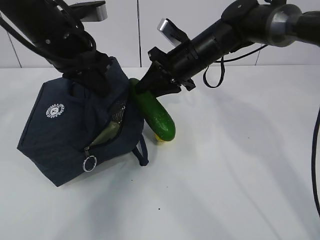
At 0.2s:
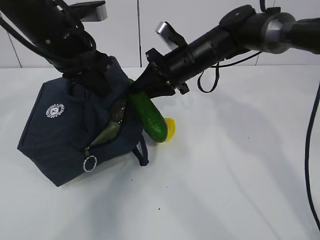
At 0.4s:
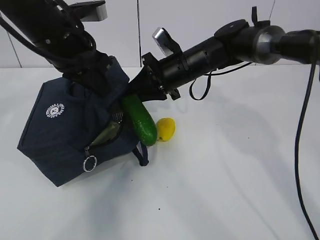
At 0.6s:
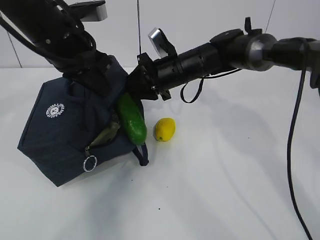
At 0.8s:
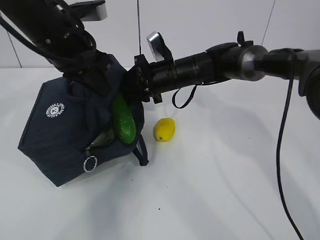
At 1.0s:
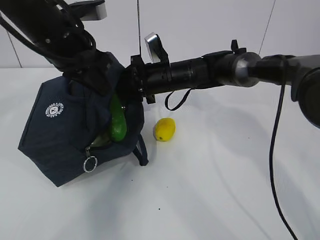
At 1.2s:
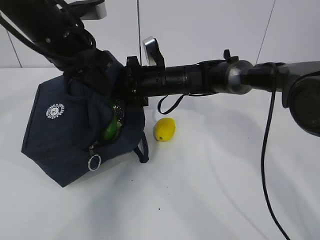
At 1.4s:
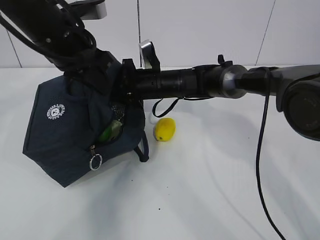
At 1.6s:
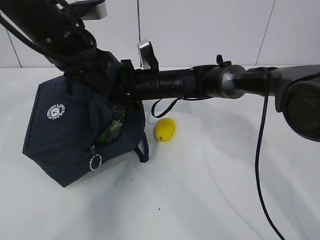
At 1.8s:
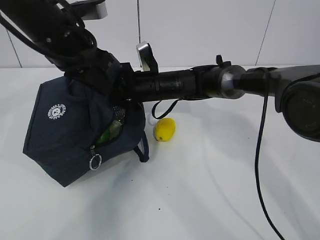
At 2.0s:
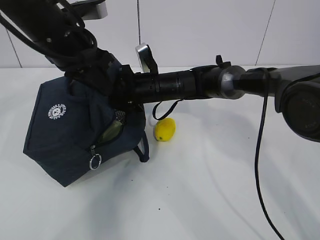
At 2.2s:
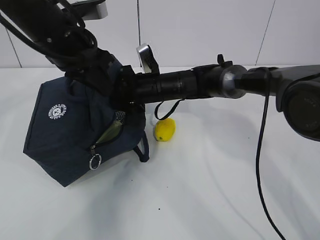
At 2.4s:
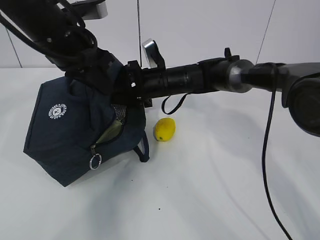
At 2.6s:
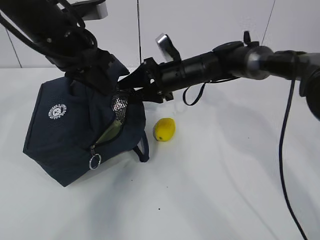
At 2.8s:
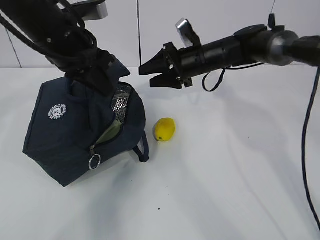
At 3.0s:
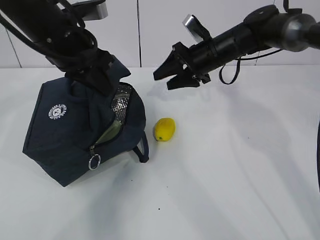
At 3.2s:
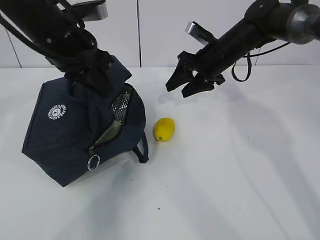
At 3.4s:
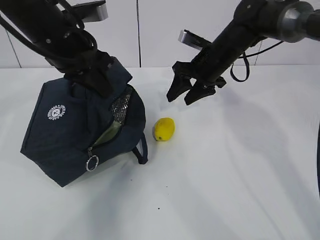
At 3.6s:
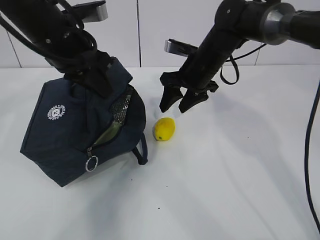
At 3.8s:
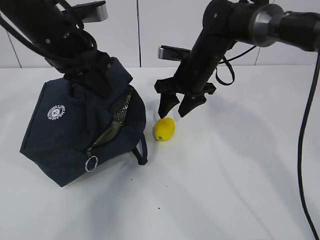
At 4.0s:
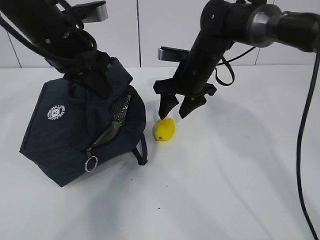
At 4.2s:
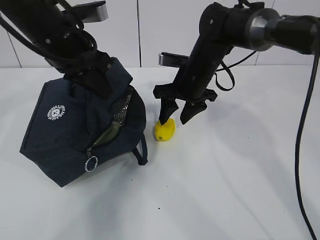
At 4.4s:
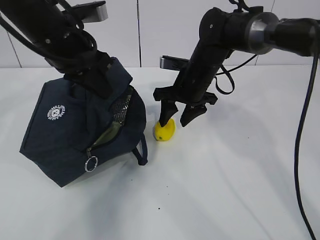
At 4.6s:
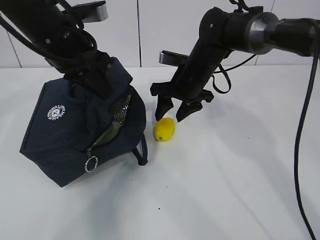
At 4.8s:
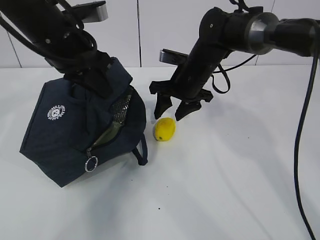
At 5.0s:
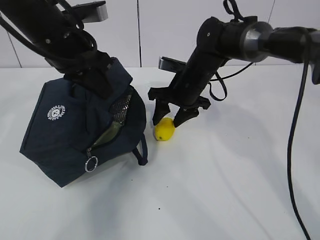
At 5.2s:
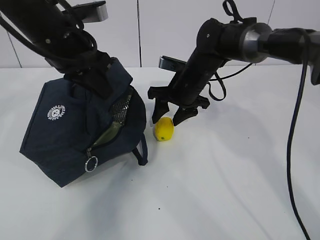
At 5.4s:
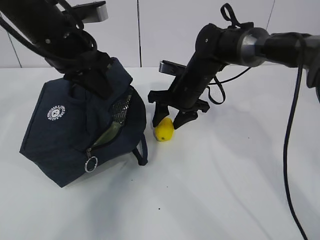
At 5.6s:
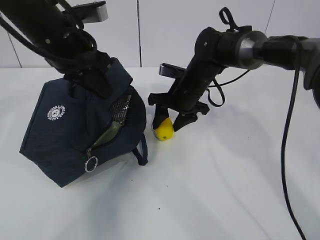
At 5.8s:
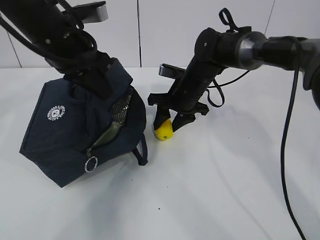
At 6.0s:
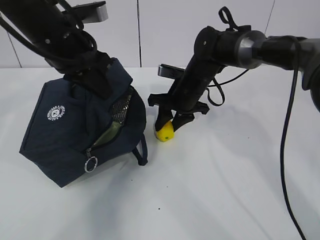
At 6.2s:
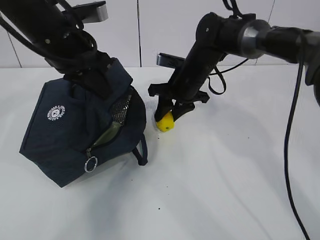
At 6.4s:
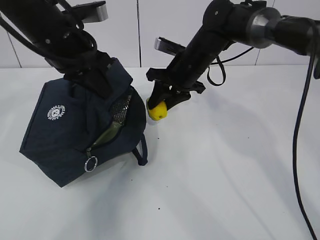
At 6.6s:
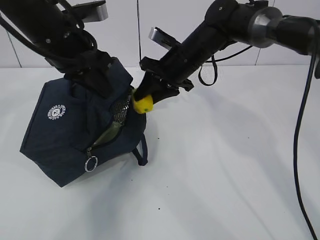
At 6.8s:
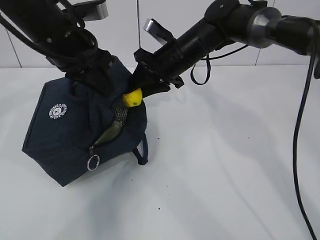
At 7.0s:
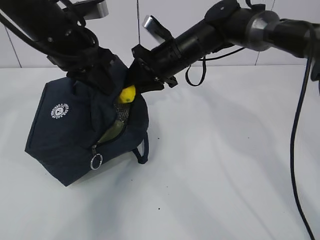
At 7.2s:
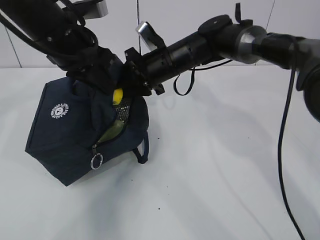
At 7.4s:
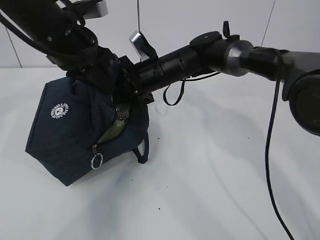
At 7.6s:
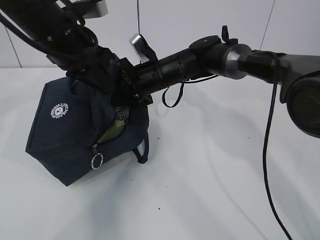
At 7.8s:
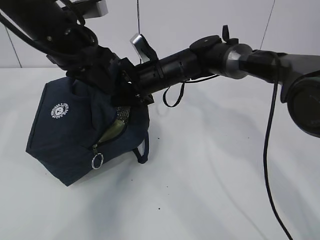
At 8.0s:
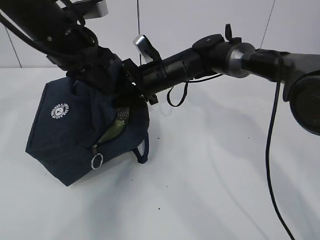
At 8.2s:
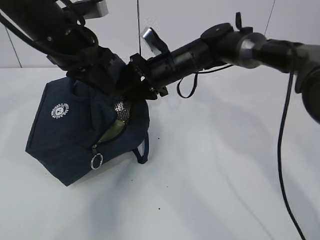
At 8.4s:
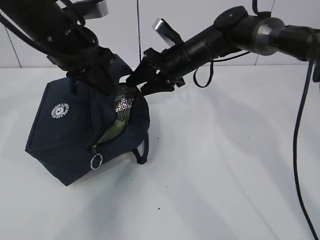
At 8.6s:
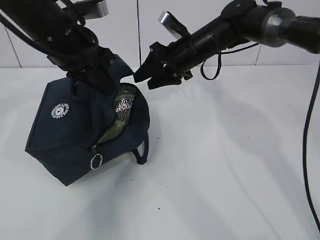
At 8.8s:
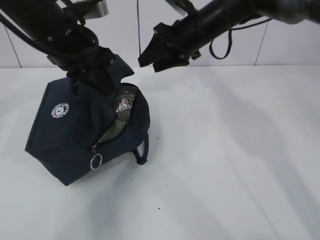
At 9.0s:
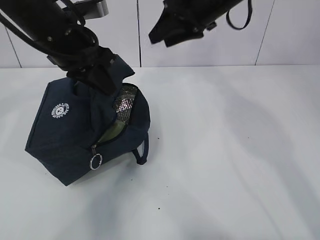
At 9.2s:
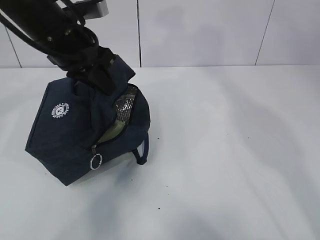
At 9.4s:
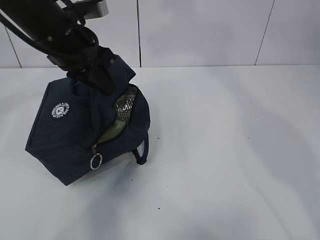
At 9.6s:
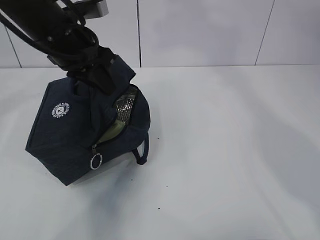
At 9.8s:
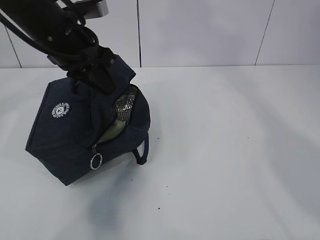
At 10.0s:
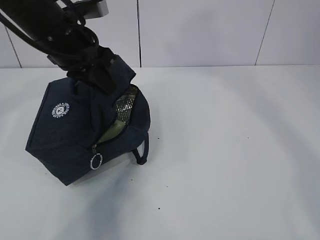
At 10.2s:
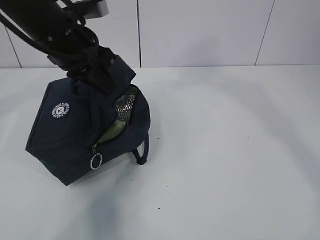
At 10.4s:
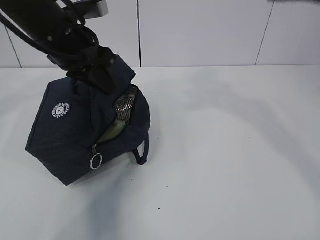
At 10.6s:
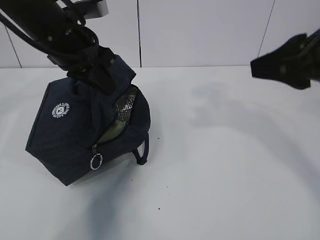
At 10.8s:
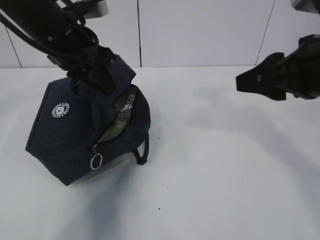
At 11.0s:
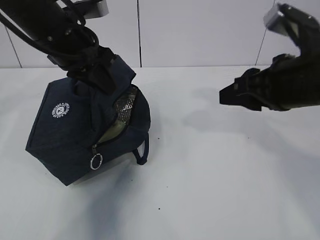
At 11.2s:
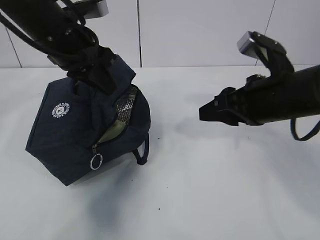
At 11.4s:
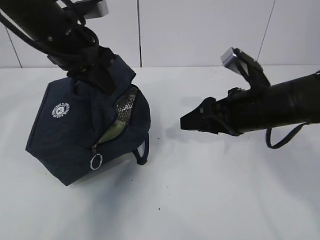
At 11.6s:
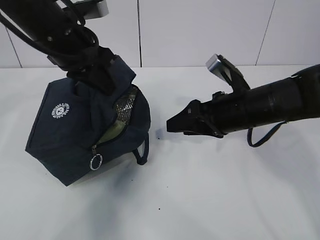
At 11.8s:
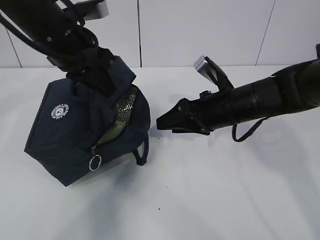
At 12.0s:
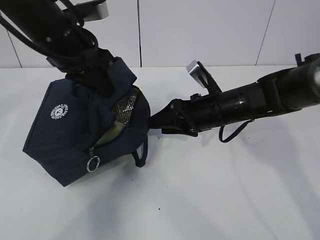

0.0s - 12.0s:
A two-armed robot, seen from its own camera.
Step, 2.4s - 6.8s: Grab the lunch bag with your right hand.
Step, 7.0s - 9.2s: Move the lunch bag to the right.
0.0s - 1.6s: The right gripper travels to the left and downward by approximately 10 cm.
1.6s - 3.0s: The right gripper travels to the right and upward by about 15 cm, and opens its fingers.
3.0s - 4.4s: The right gripper changes place by approximately 5 cm.
4.4s - 6.0s: There are only small adjustments of the grippers.
6.0s - 7.6s: The right gripper shifts some 5 cm to the left.
7.6s - 9.0s: The right gripper travels upward and to the right by some 15 cm.
9.0s - 10.4s: The right gripper heads backward and upward, covering roughly 25 cm.
10.4s - 12.0s: The right gripper is displaced downward and forward by approximately 30 cm.

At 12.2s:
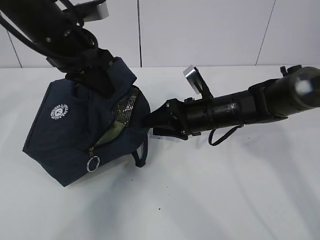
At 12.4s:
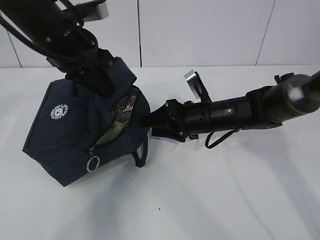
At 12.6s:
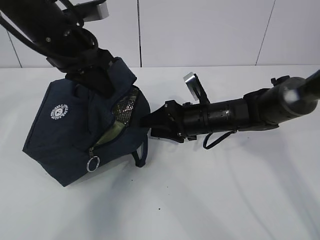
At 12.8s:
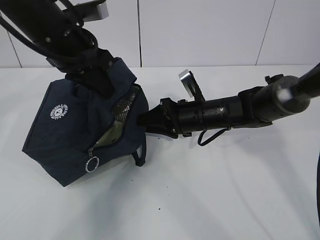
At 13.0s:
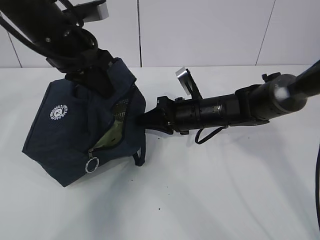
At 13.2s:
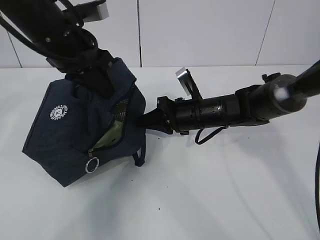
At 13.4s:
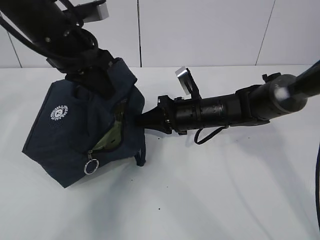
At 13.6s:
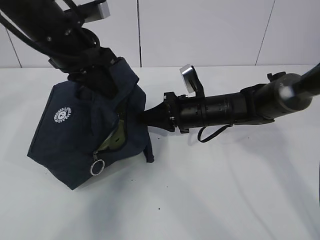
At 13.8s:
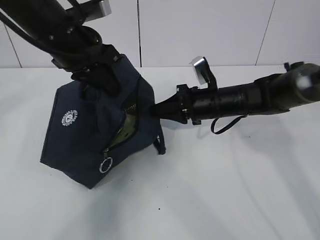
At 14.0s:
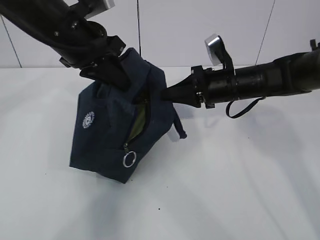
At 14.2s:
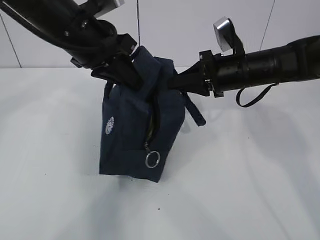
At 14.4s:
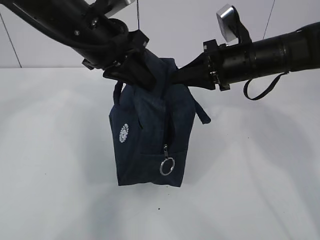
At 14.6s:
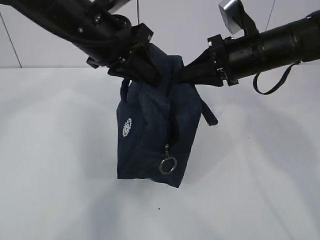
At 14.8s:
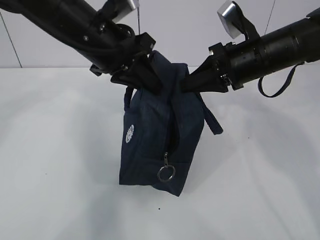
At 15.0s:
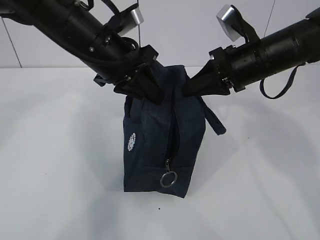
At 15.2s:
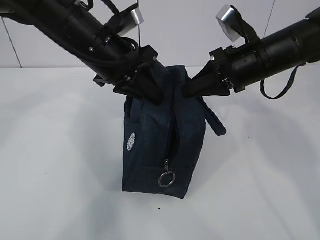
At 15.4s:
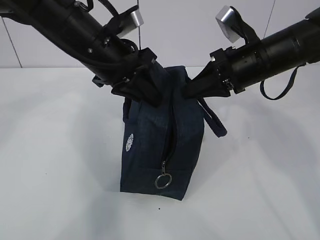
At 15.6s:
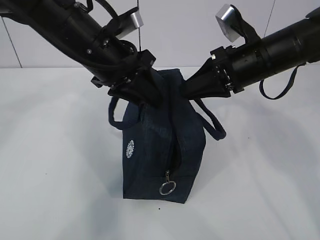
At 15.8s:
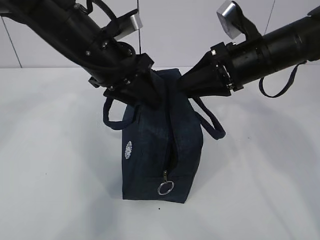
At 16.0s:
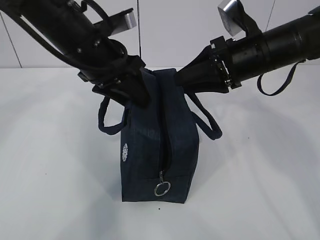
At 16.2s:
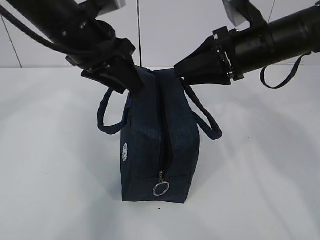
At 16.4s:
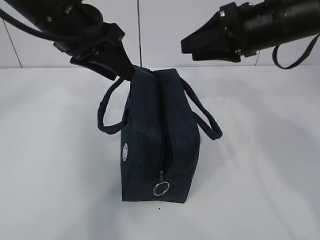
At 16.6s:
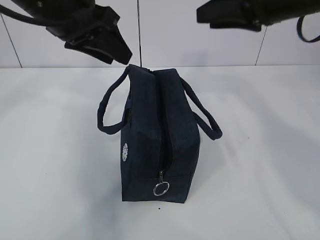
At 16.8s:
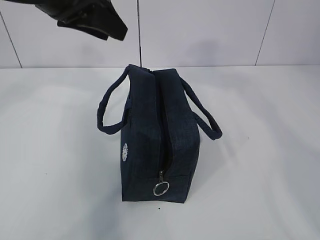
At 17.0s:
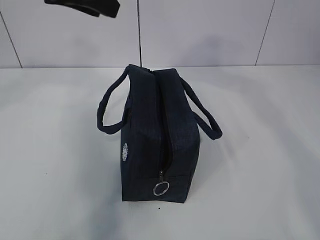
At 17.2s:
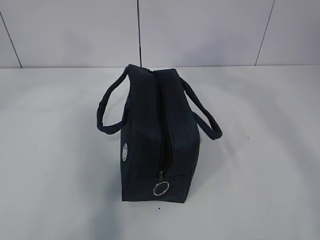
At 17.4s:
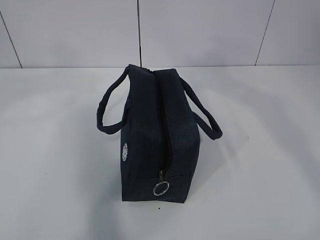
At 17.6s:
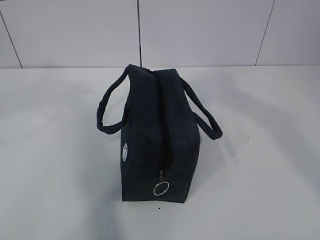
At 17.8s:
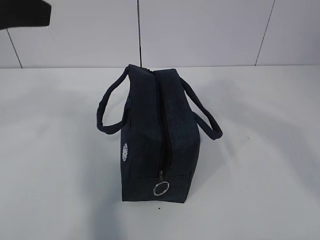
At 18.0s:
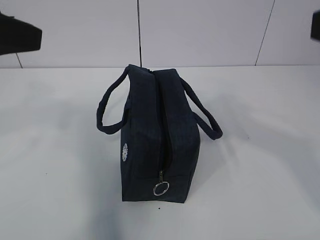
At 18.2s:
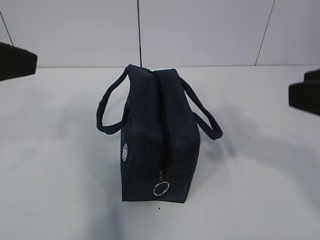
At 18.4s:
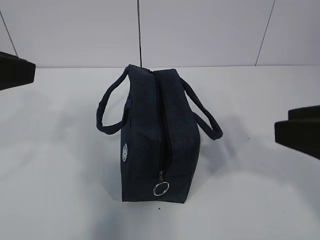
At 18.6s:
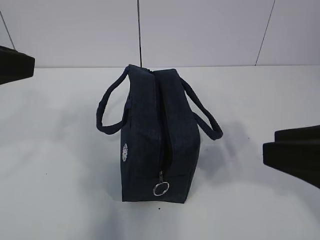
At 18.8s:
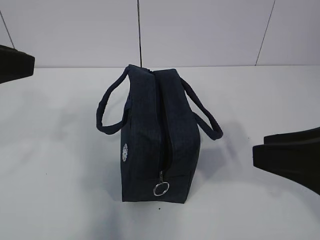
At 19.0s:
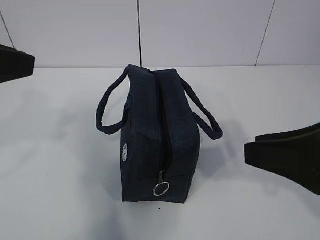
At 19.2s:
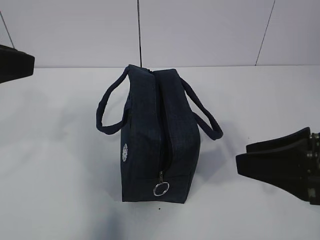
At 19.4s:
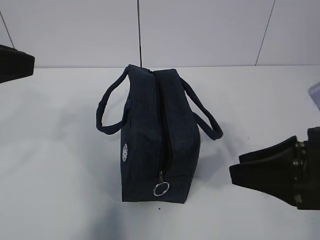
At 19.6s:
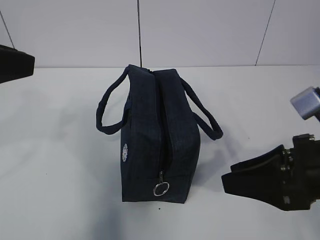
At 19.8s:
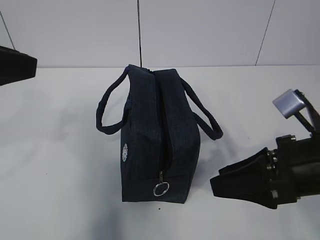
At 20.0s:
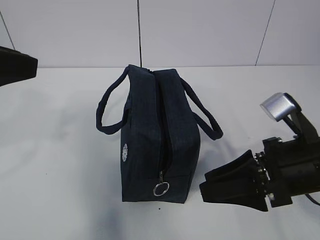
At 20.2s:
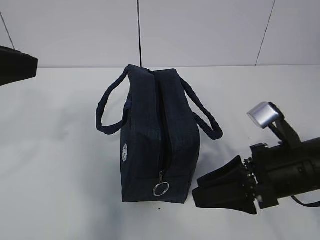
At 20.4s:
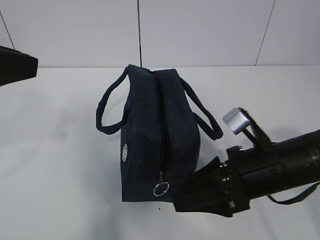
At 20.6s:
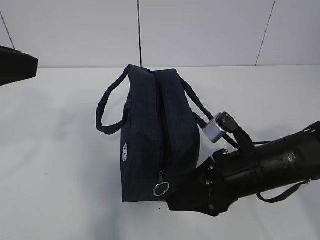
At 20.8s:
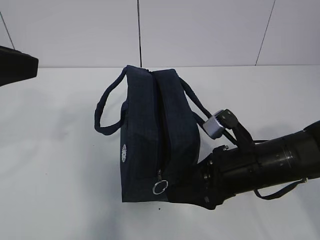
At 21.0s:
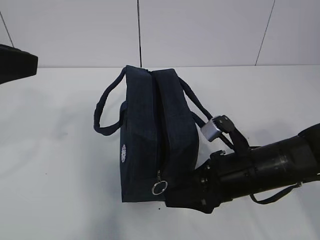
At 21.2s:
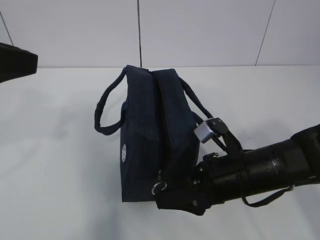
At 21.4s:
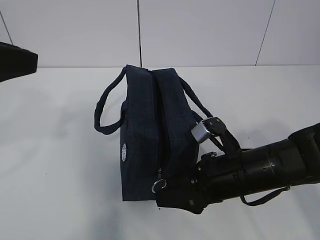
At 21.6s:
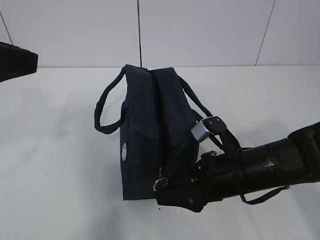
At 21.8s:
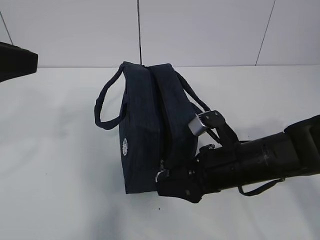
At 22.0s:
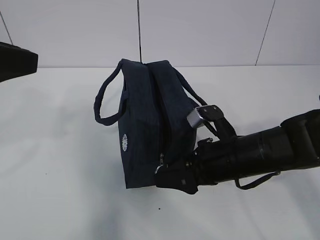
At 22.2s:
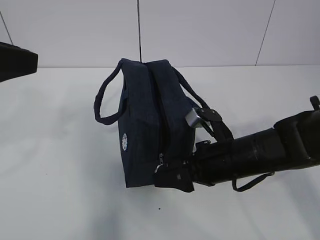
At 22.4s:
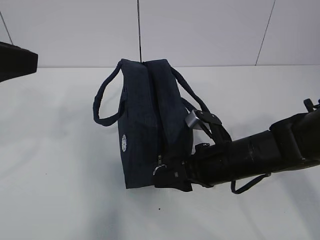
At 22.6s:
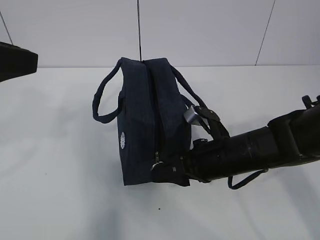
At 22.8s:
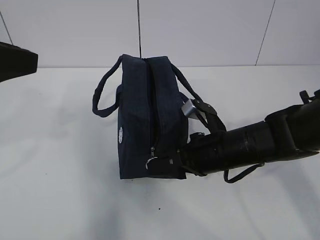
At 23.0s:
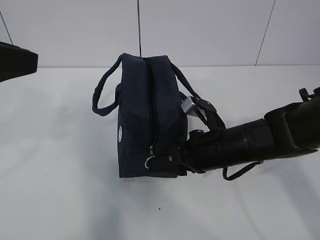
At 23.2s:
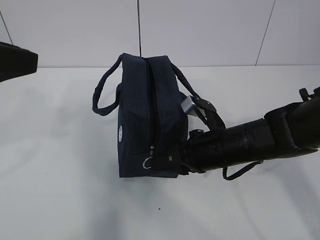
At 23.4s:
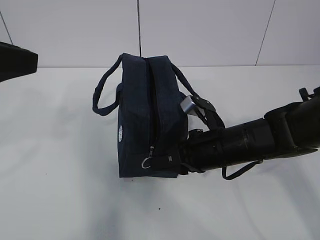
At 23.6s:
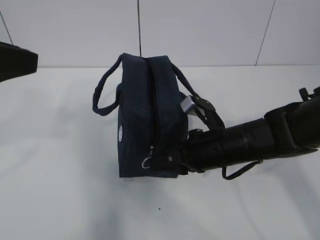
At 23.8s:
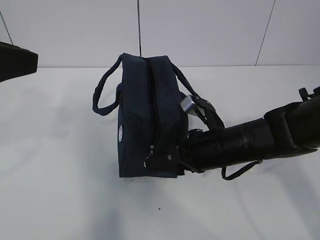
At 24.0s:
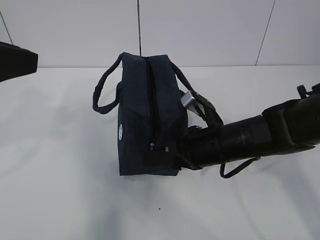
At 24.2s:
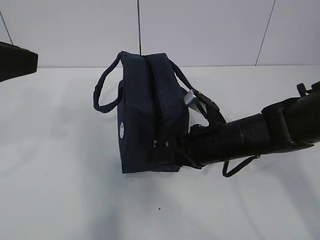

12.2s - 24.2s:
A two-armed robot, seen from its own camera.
12.2s - 13.8s: The right gripper closes up.
13.8s - 15.2s: The left gripper changes place by some 5 cm, while the right gripper is displaced upward by some 10 cm.
15.2s - 16.6s: The two grippers go approximately 10 cm upward. The left gripper opens up. Meanwhile the right gripper opens its fingers.
16.6s - 18.2s: The right gripper is displaced backward by roughly 20 cm. The left gripper moves backward and to the left, about 20 cm.
18.2s - 19.8s: The right gripper heads downward and forward, covering some 15 cm.
19.8s - 21.2s: The right gripper travels downward and to the left by some 10 cm.
21.2s - 22.6s: The grippers stay close to where they were, moving slightly.
22.6s - 24.2s: The right gripper closes and opens again.
